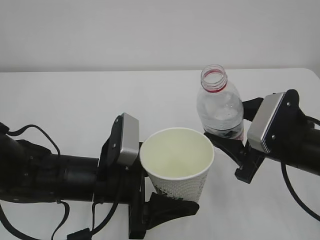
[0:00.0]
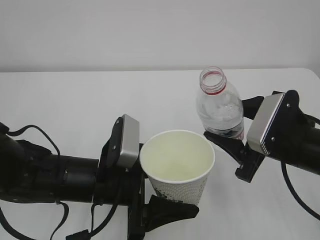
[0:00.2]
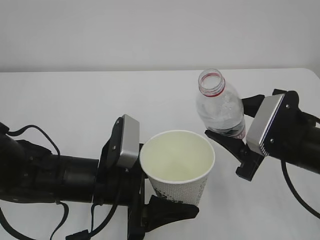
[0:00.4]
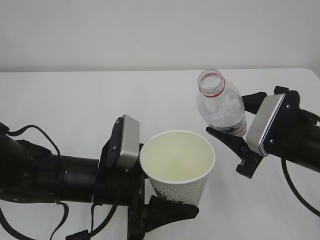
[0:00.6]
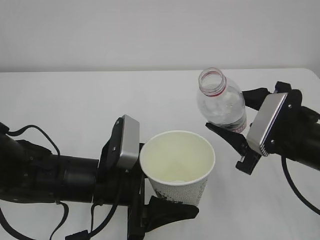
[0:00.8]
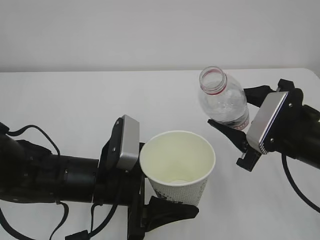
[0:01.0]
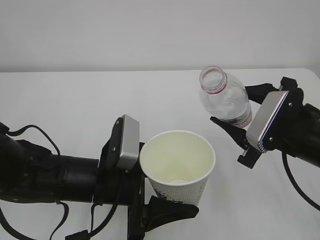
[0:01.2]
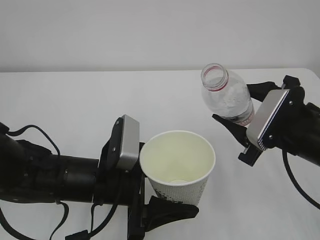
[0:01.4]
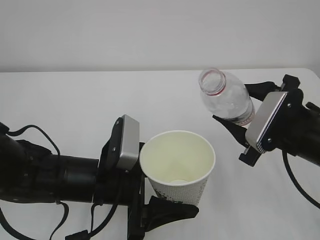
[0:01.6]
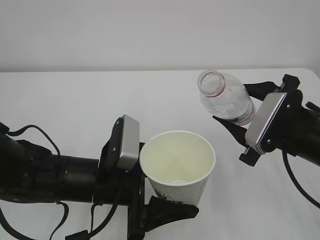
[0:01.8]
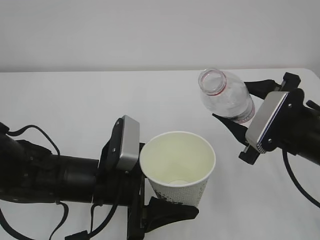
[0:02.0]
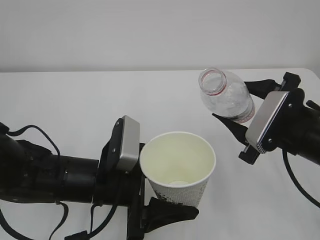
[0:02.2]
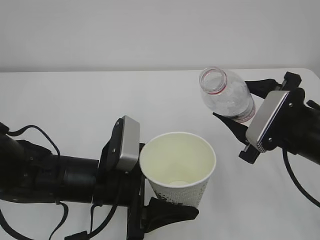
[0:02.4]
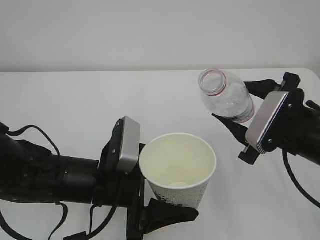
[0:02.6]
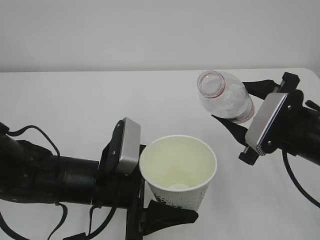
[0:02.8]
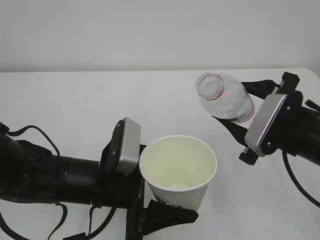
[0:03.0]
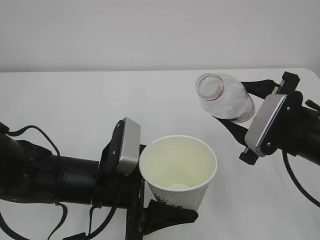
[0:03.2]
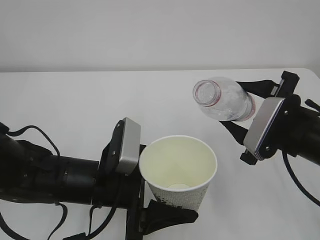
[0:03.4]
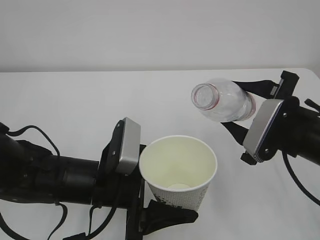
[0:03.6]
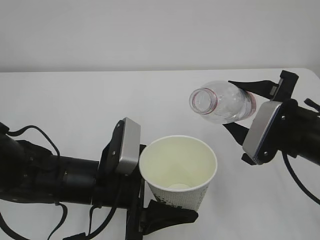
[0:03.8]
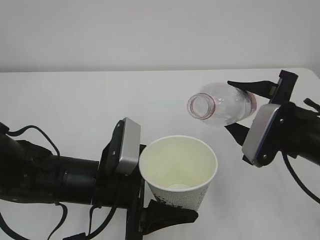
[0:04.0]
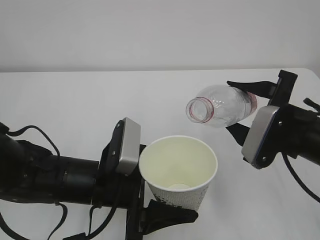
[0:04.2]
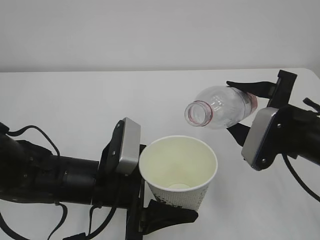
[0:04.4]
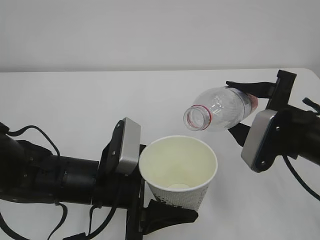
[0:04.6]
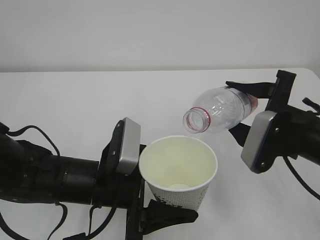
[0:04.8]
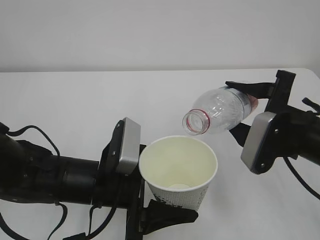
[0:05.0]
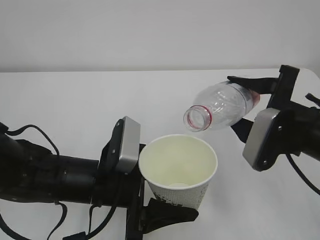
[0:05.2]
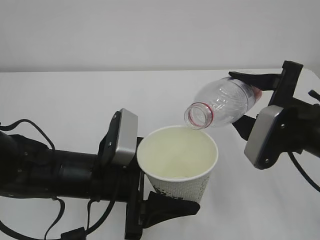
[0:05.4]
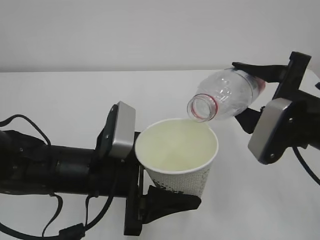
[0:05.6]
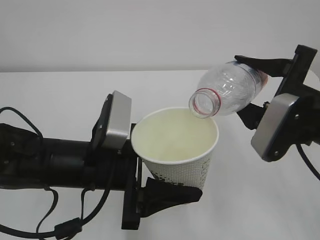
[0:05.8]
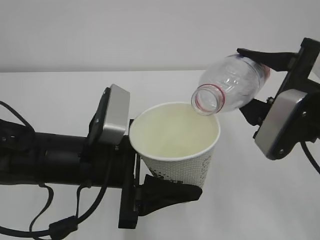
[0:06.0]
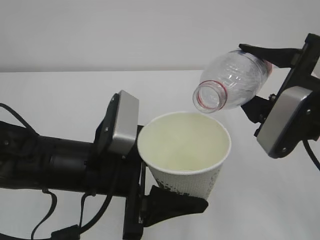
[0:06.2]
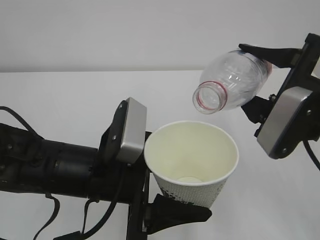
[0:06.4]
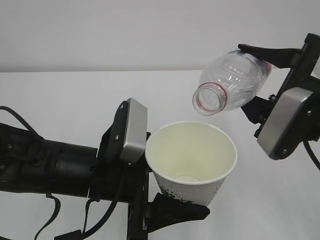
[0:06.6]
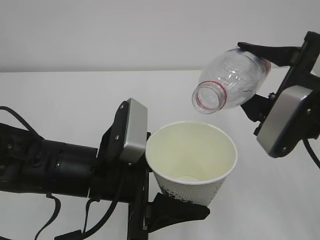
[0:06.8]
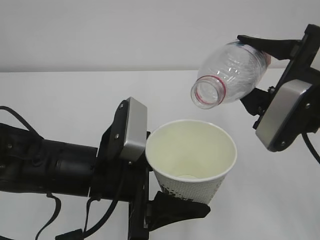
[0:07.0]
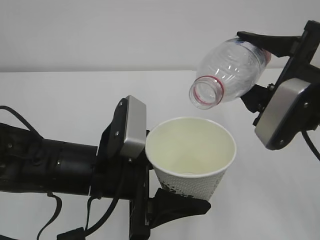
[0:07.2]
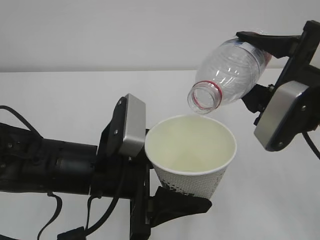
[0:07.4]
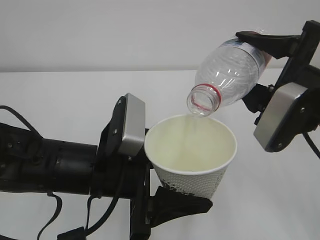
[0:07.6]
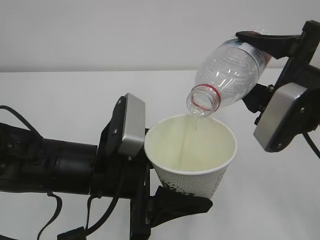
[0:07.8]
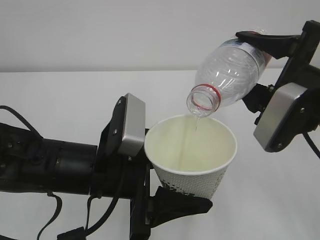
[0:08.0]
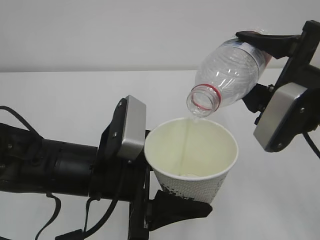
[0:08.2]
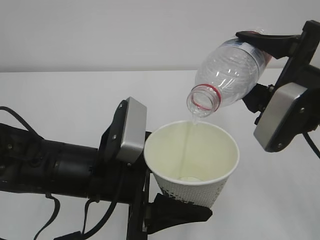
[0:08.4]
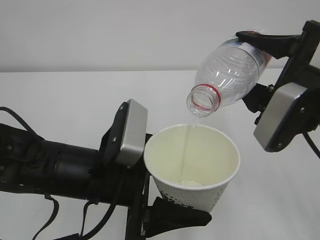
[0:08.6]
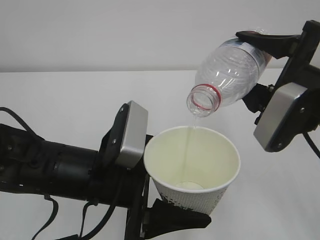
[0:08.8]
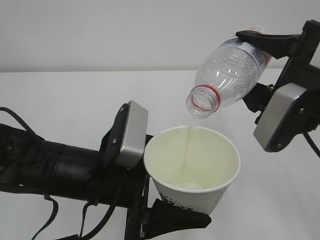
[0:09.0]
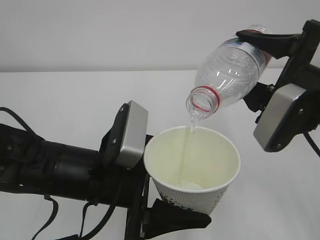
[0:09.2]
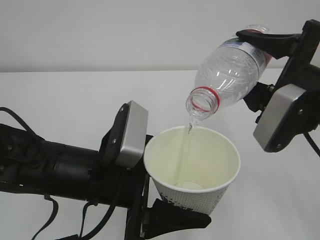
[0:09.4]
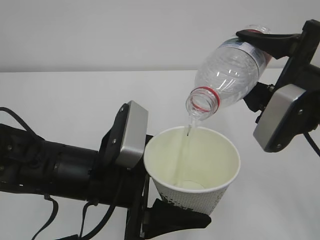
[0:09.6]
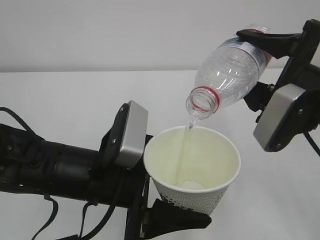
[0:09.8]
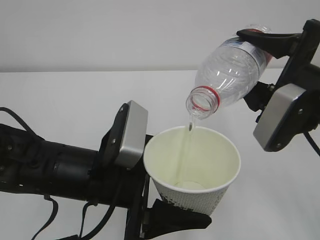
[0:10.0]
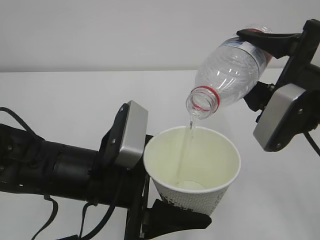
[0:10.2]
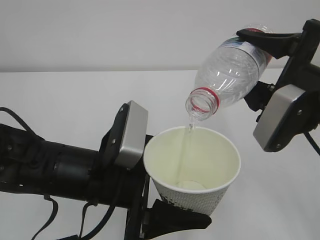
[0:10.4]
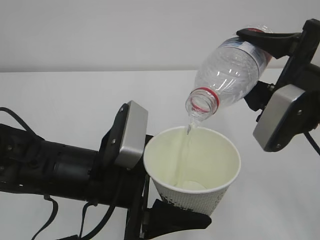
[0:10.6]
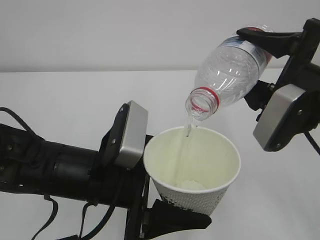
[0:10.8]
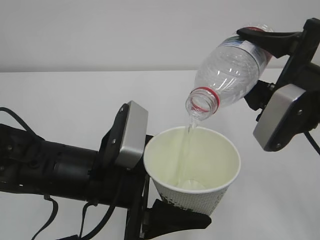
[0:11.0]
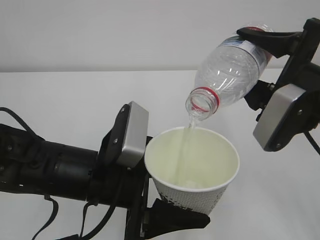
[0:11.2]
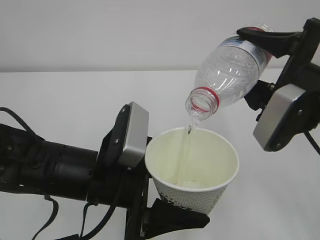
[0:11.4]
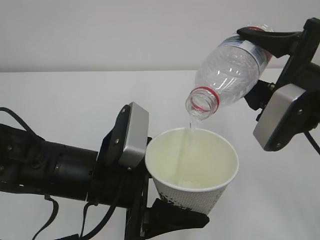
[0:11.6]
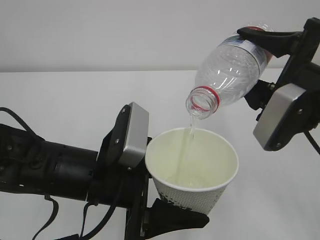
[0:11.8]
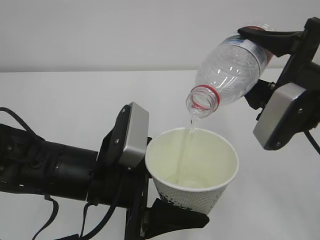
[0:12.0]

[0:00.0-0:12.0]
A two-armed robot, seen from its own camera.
0:00.0 to 0:01.6: The grippers move only a little.
0:01.6 to 0:03.0: The two grippers keep their place.
0:03.0 to 0:04.4: The grippers make only small movements.
0:04.4 to 0:06.0: The left gripper travels upward by about 5 cm. The right gripper moves roughly 5 cm.
0:07.6 to 0:12.0: Both grippers stay put.

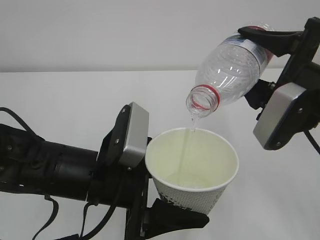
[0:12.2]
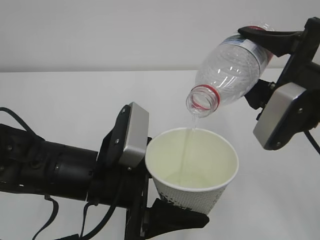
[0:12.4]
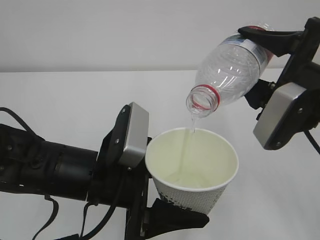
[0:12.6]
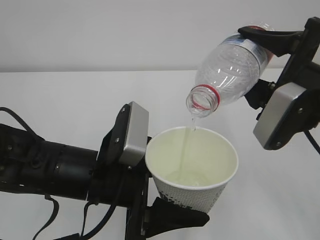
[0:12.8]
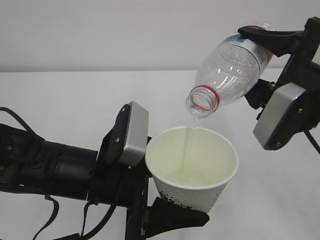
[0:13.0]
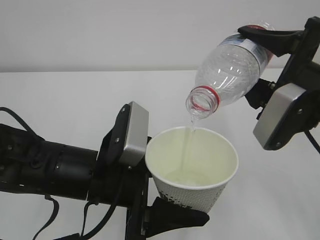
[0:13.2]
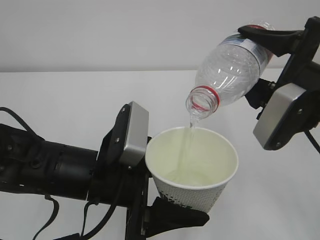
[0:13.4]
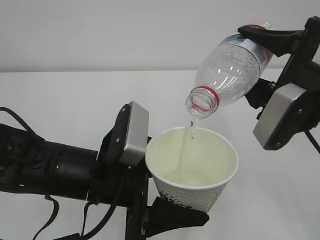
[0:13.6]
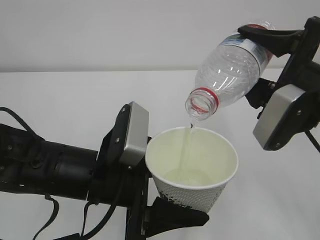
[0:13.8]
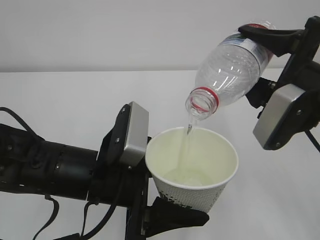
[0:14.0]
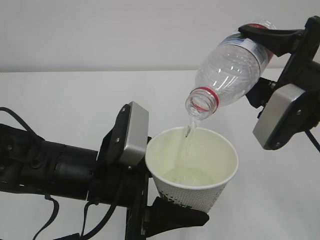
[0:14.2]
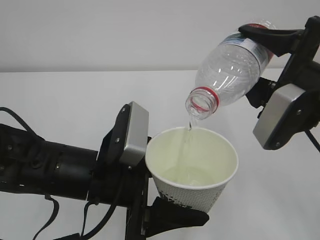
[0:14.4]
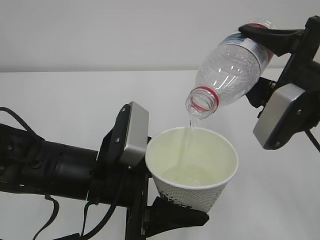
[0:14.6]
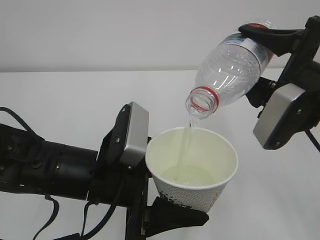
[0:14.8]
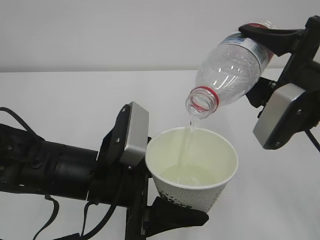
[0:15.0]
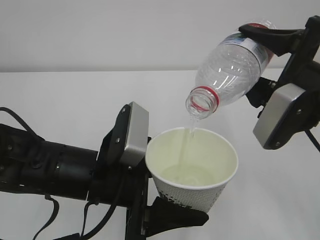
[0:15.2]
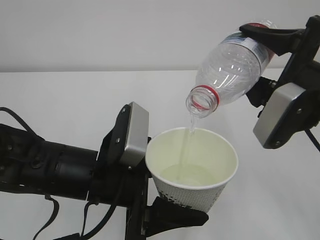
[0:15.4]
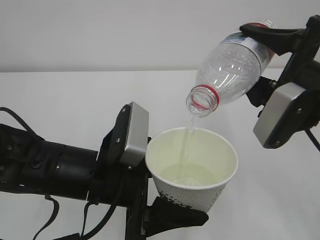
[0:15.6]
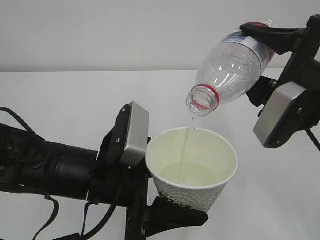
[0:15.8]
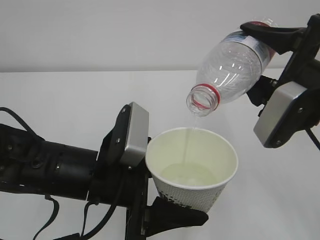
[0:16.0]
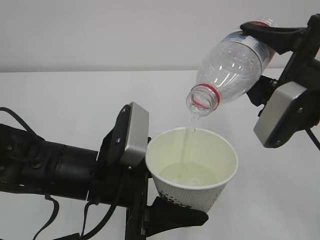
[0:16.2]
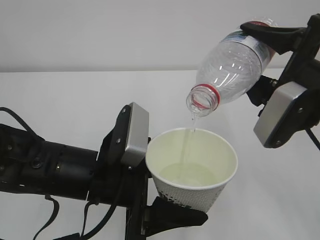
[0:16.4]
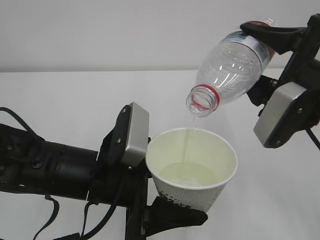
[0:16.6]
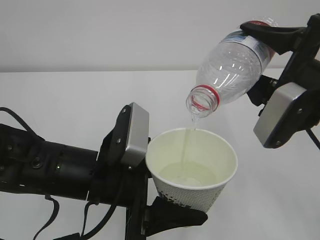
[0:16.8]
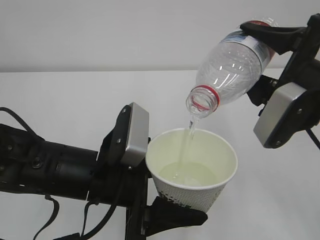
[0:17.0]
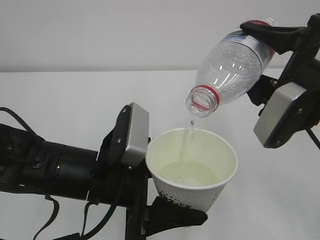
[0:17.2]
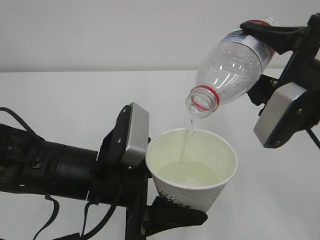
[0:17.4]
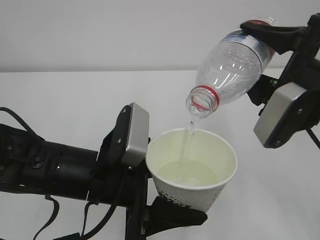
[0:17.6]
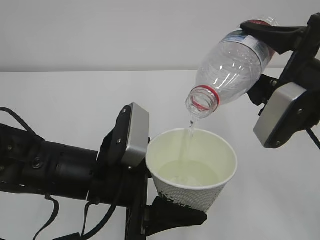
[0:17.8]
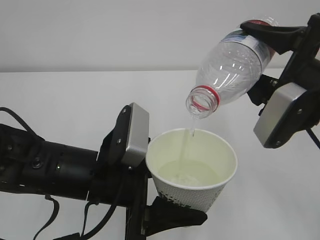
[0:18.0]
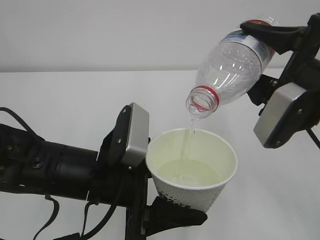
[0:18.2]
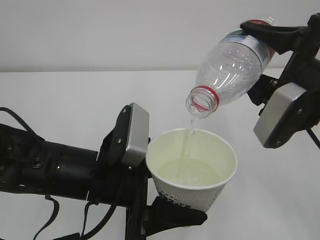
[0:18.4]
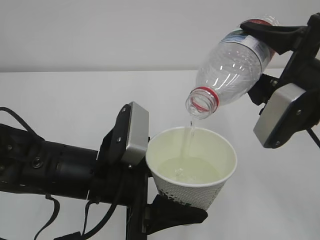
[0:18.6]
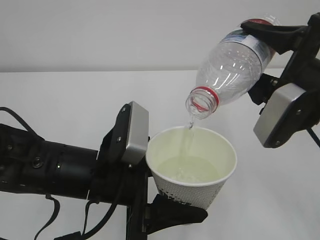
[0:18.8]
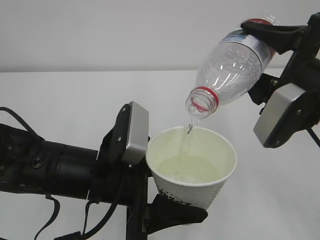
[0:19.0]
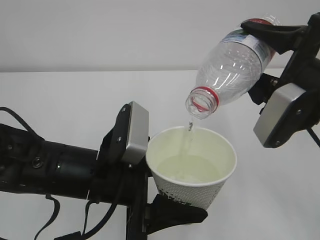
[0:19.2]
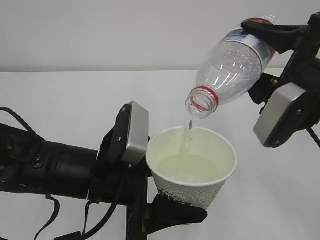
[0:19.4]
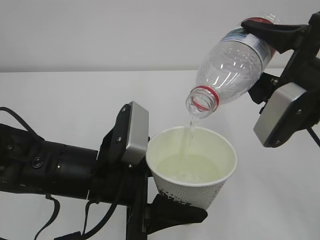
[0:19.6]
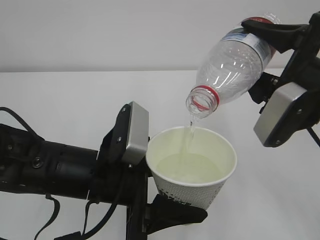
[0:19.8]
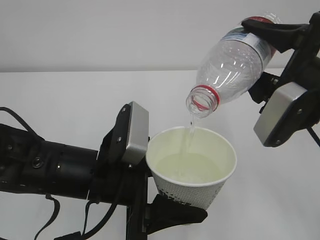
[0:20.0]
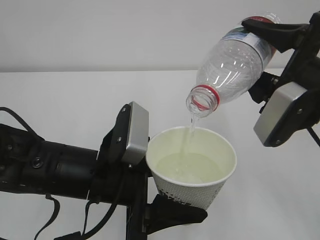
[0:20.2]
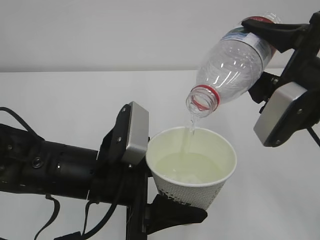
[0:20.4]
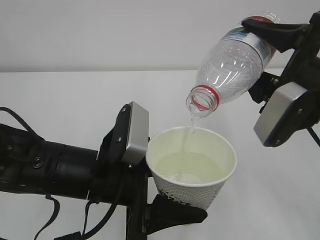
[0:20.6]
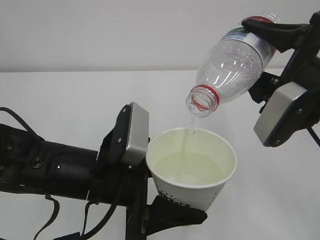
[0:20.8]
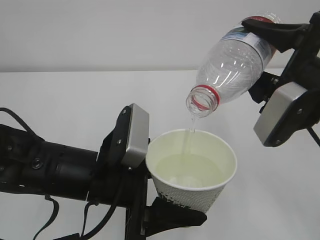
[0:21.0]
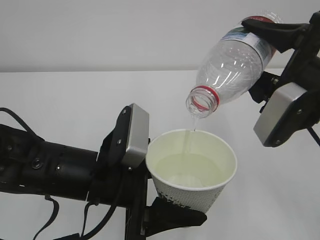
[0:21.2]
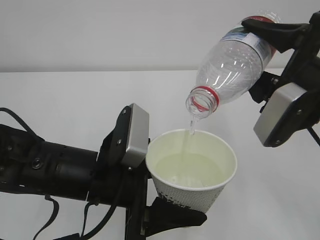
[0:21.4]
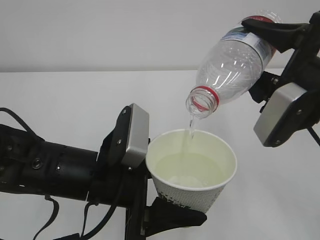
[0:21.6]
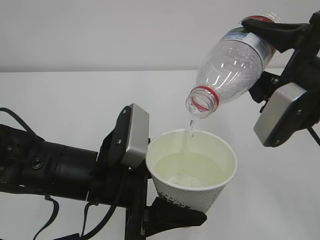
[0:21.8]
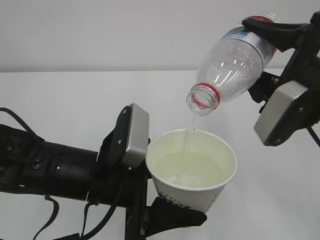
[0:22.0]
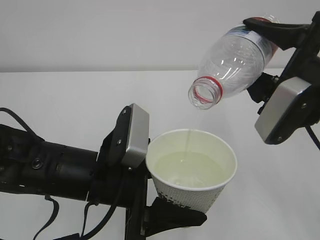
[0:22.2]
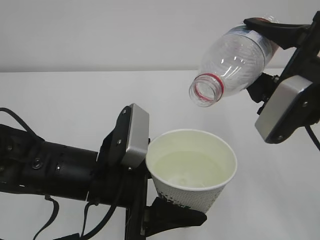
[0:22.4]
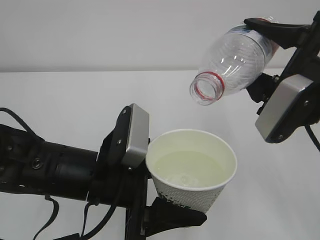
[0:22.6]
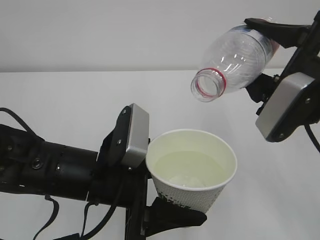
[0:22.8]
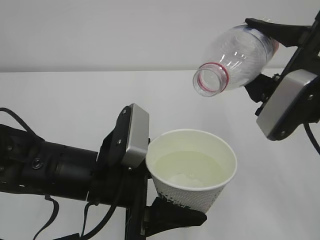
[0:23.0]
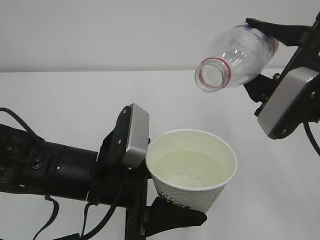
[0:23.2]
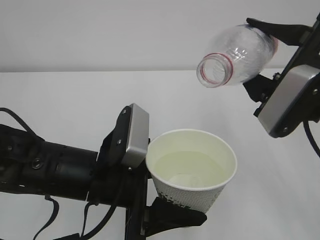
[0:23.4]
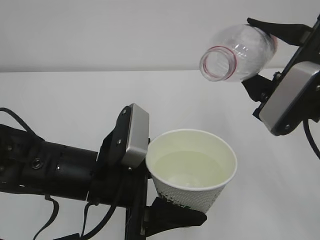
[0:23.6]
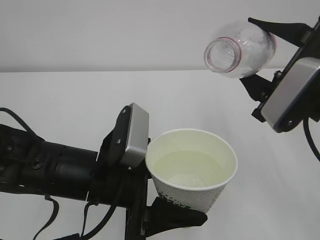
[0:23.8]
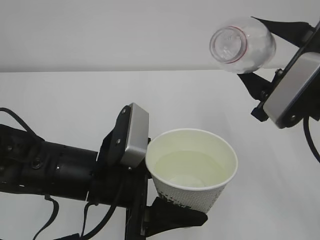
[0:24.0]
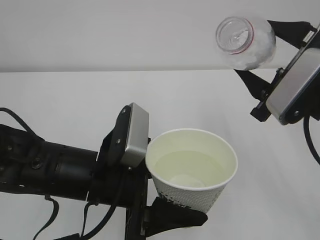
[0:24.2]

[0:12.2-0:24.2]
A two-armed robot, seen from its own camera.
0:12.2 to 0:18.2: Both grippers stay about where they are.
0:18.2 to 0:21.2: Both grippers stay put.
0:21.2 to 0:22.6: The grippers make only small movements.
